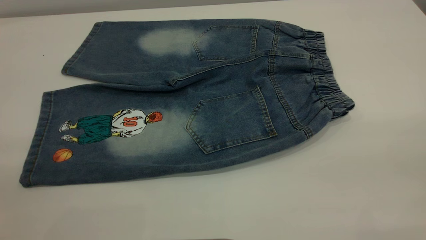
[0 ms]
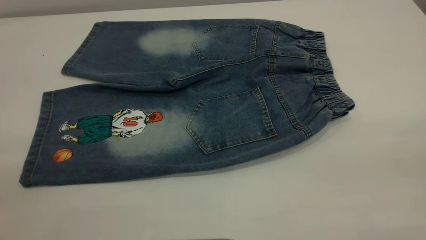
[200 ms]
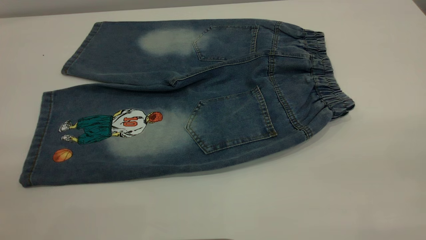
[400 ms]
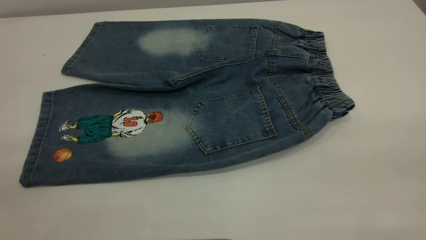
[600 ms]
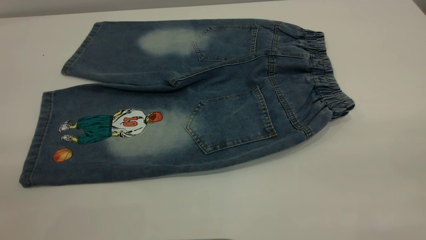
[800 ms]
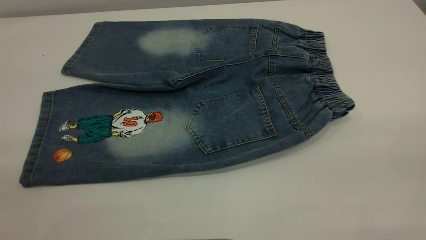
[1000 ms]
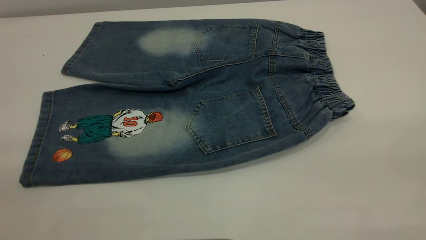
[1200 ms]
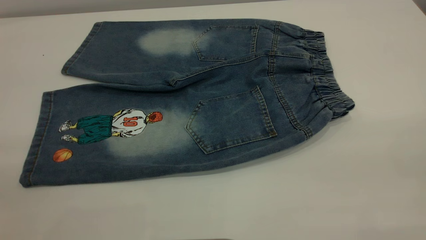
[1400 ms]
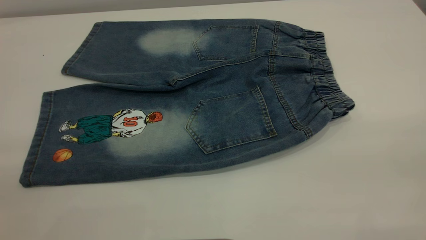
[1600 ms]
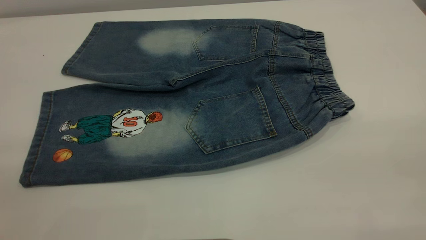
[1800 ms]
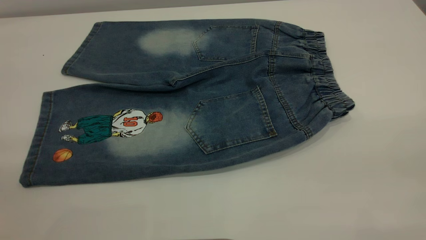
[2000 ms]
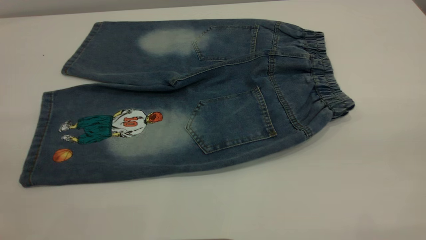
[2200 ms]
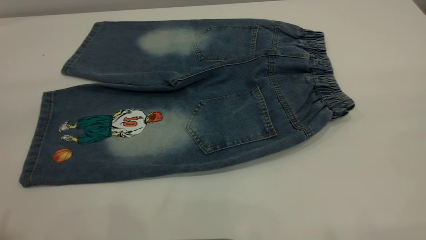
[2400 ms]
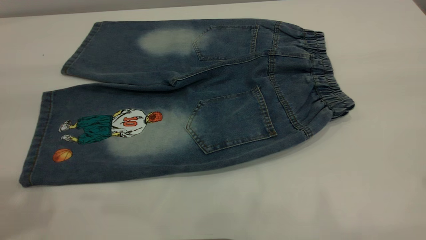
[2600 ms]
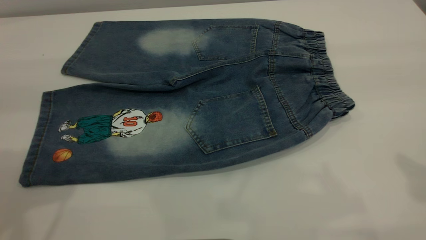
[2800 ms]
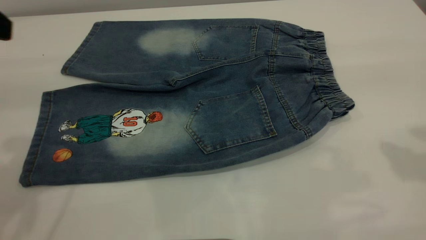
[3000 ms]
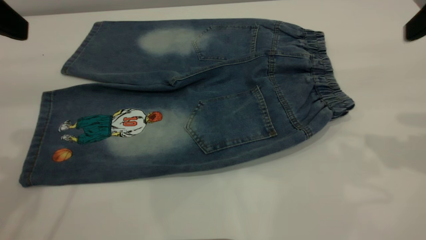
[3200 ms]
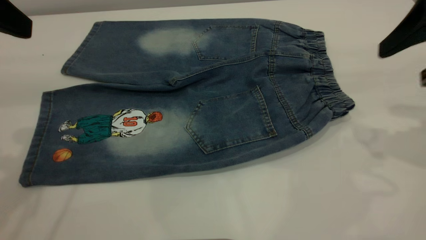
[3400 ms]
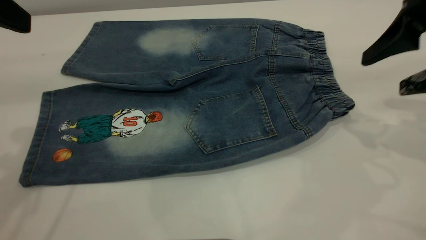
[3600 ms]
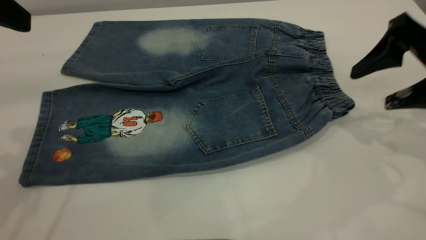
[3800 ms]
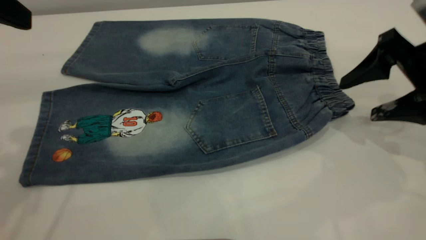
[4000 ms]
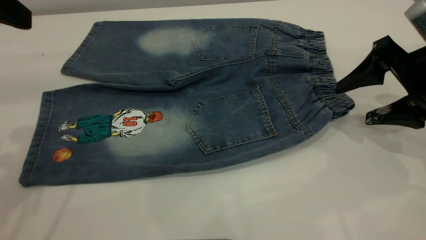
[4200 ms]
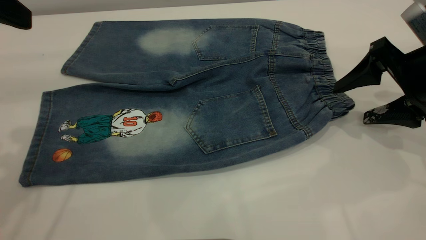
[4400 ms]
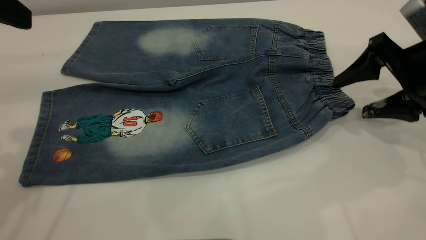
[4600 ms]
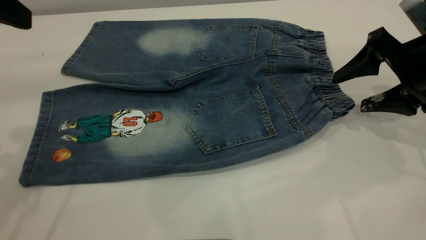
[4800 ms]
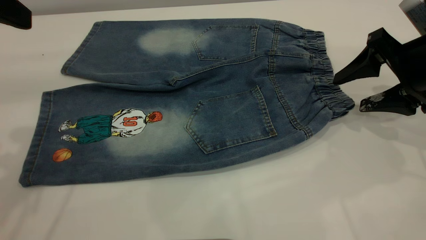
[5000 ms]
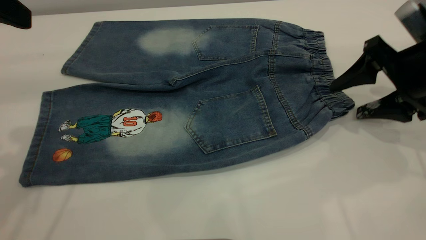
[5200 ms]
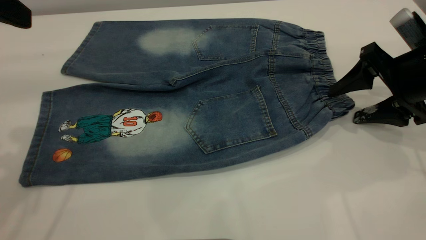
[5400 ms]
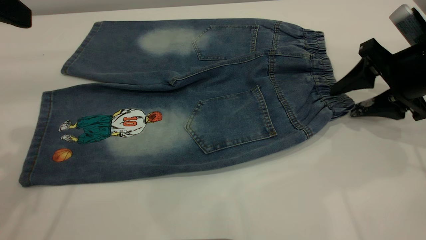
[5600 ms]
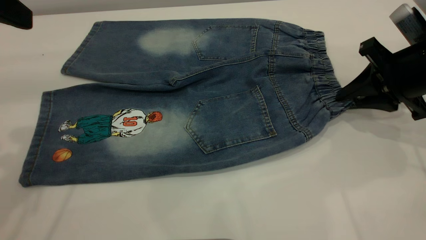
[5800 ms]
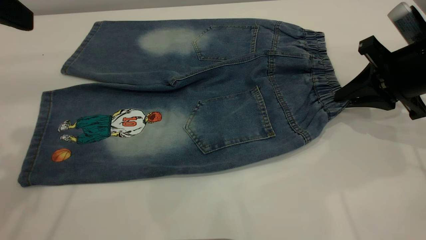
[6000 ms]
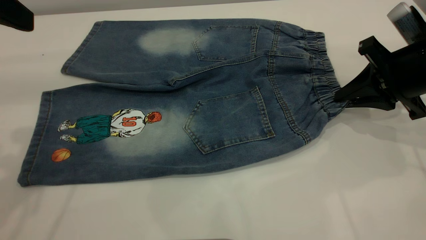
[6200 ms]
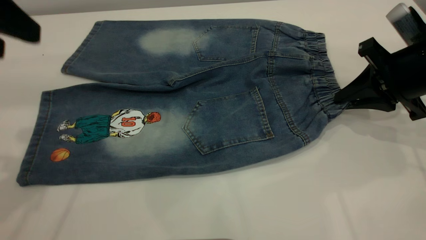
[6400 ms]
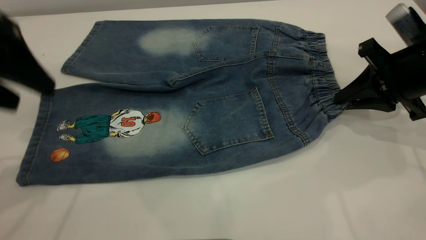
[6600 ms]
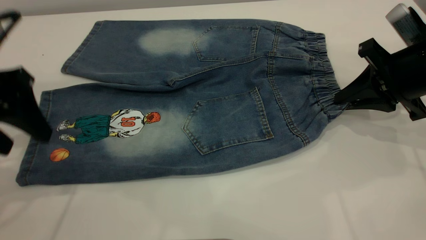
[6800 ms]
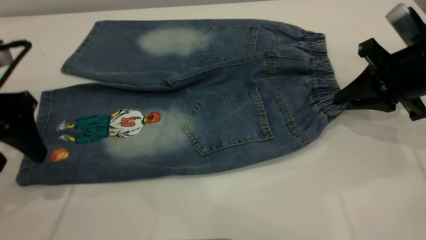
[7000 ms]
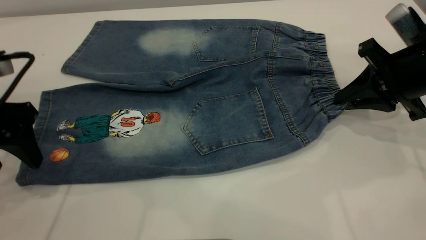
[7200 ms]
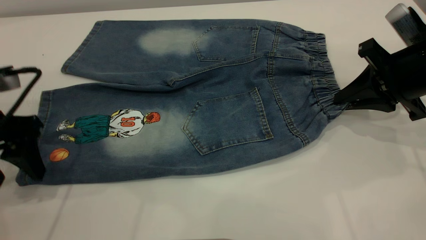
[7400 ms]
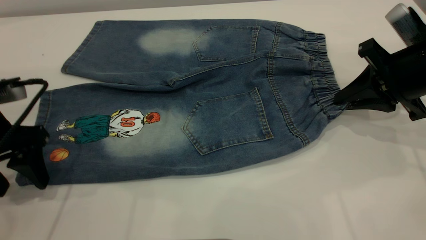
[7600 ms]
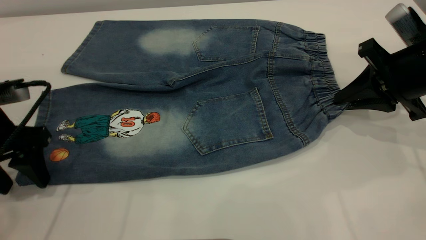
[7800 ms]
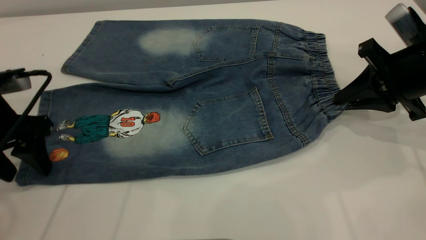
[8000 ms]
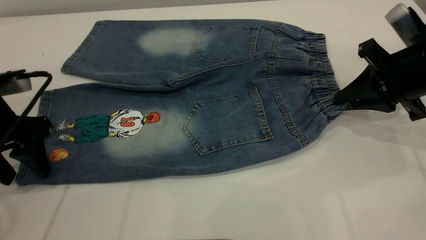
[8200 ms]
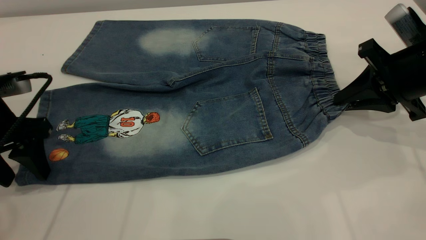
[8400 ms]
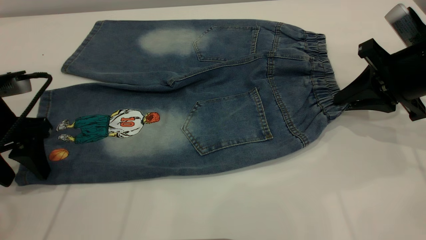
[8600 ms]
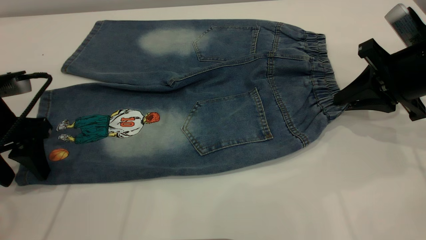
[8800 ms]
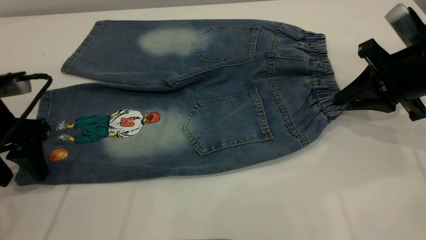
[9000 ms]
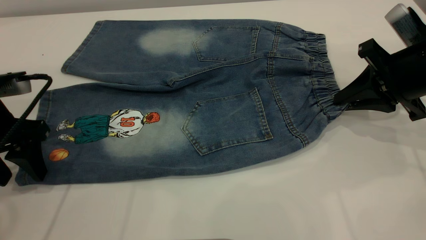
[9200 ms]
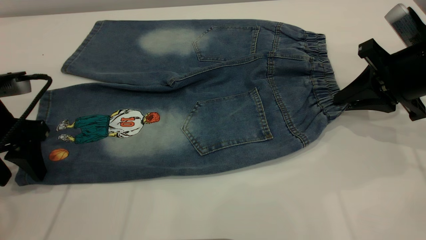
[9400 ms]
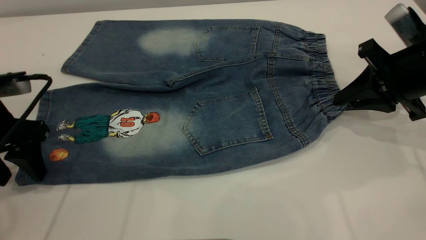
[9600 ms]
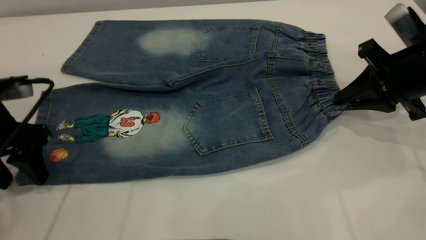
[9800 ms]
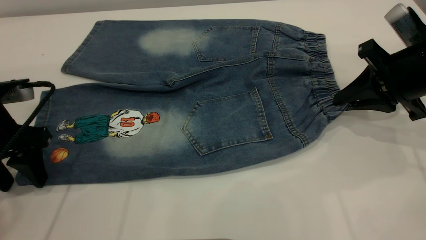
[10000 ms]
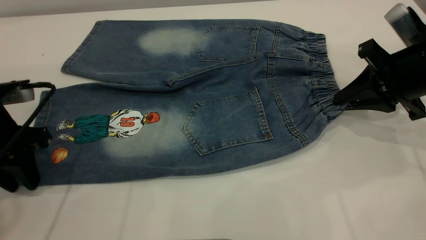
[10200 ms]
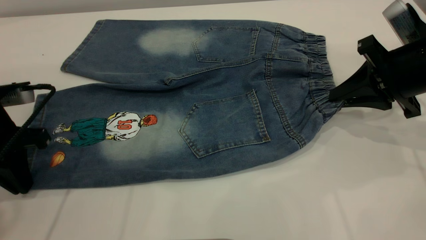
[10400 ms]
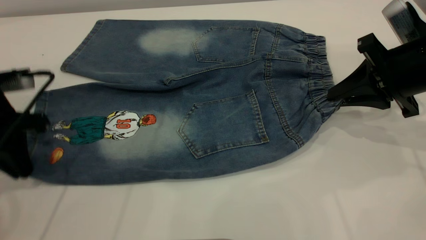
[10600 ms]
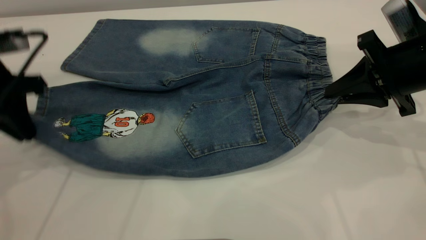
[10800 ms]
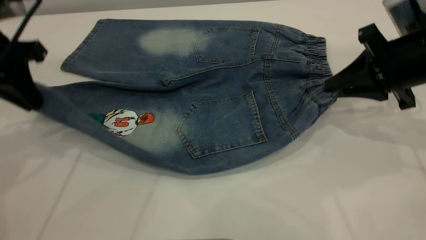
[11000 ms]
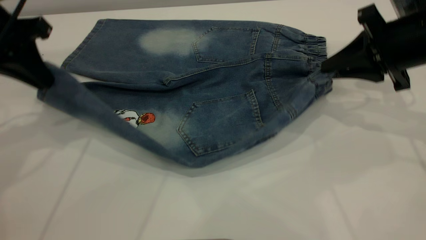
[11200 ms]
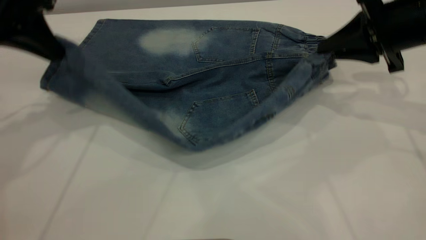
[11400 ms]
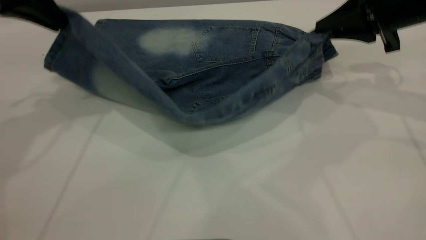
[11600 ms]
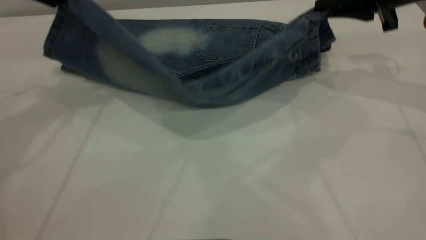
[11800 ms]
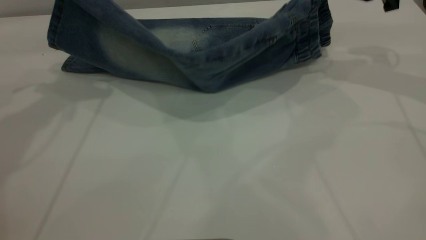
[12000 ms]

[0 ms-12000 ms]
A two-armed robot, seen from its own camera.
0 ms to 1600 ms: Both grippers stay put.
3000 ms to 4400 ms: The right gripper heads downward and forward, covering some 20 cm.
4400 ms to 6000 ms: The right gripper closes up.
6000 ms to 7600 ms: The left gripper travels downward by about 15 cm.
7600 ms to 9000 ms: The grippers move only a little.
9000 ms to 10400 ms: The left gripper closes up.
10400 ms to 12000 ms: The left gripper shifts some 20 cm upward and forward, while the right gripper moves forward and upward, some 15 cm.

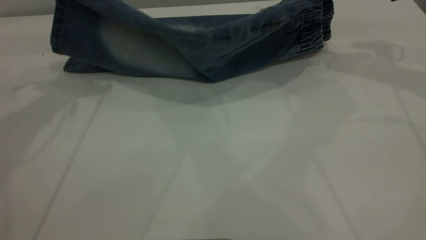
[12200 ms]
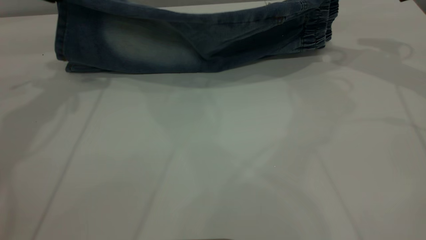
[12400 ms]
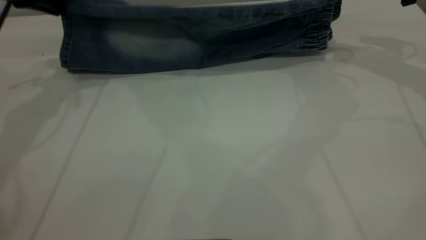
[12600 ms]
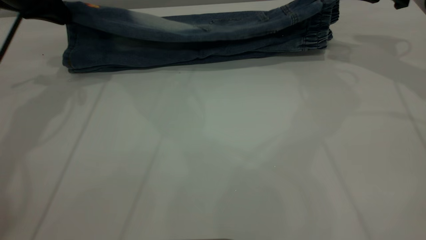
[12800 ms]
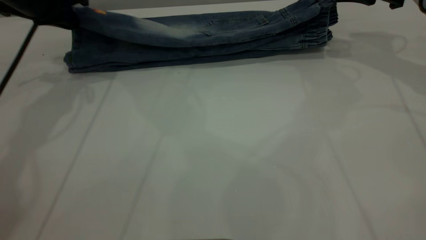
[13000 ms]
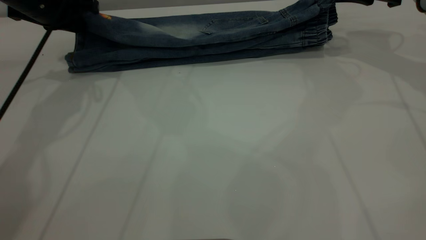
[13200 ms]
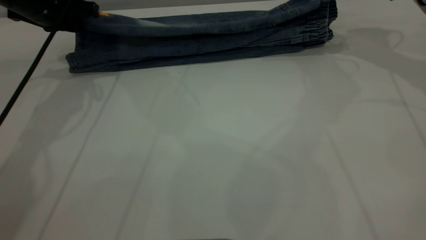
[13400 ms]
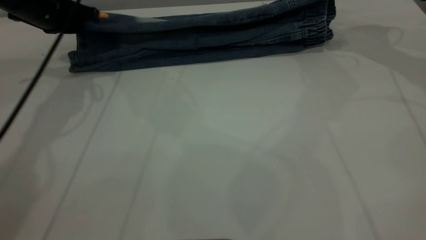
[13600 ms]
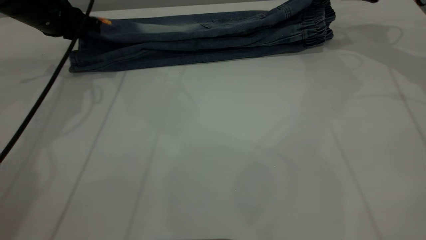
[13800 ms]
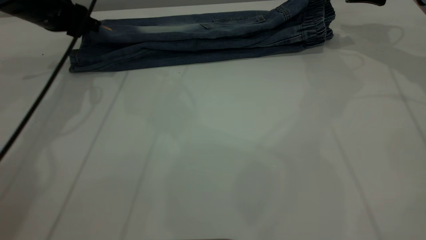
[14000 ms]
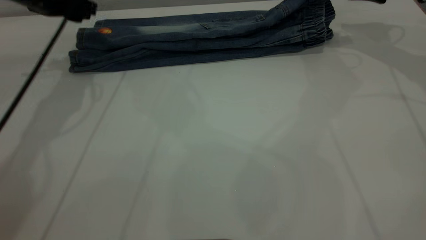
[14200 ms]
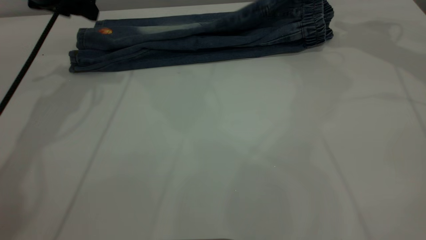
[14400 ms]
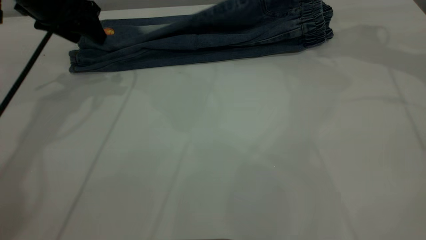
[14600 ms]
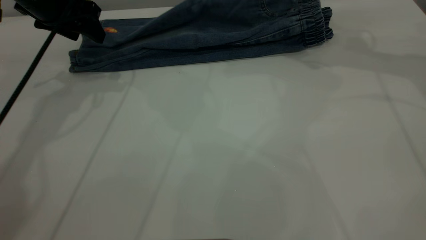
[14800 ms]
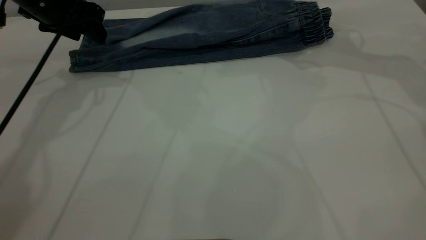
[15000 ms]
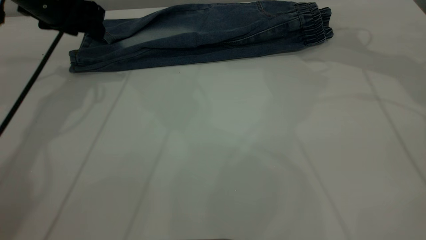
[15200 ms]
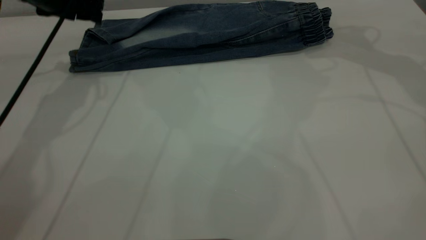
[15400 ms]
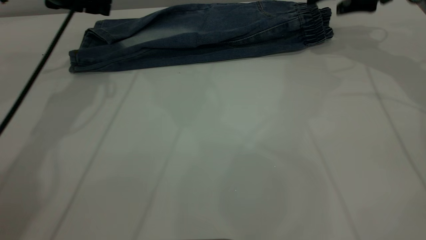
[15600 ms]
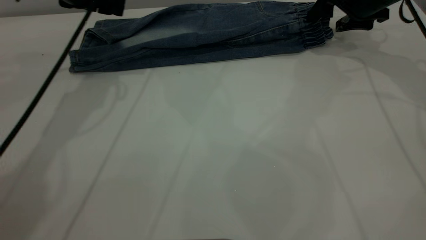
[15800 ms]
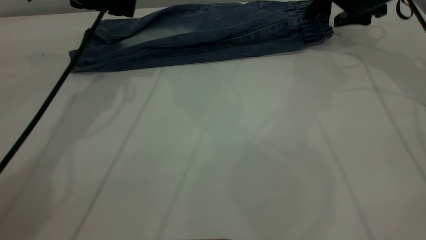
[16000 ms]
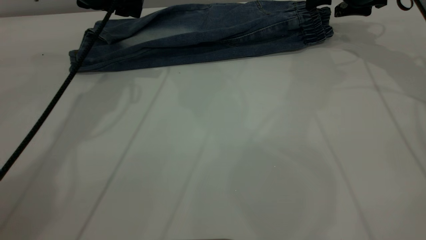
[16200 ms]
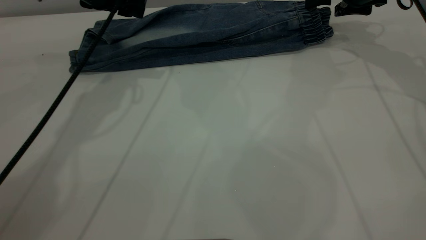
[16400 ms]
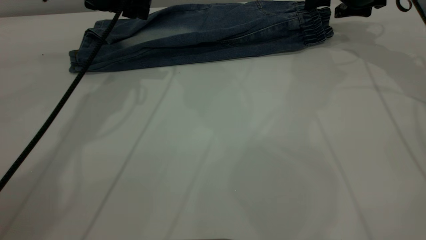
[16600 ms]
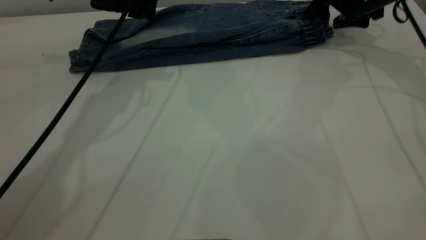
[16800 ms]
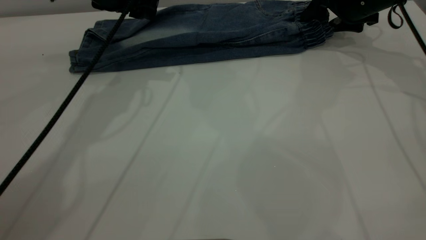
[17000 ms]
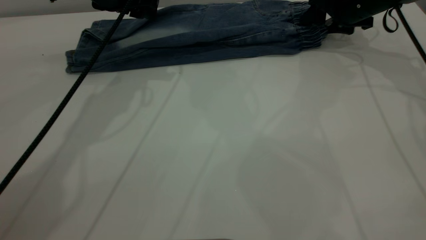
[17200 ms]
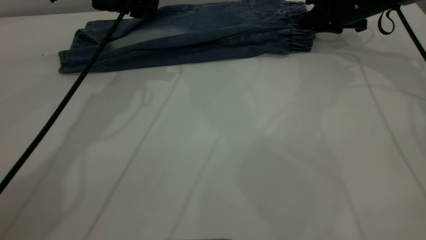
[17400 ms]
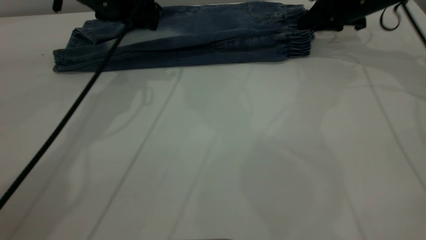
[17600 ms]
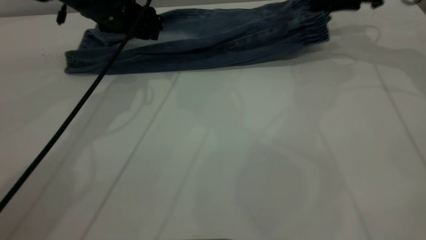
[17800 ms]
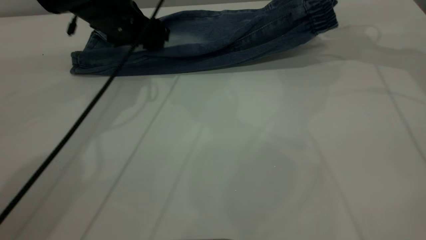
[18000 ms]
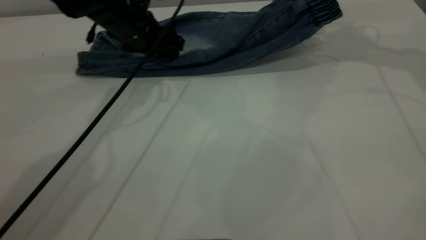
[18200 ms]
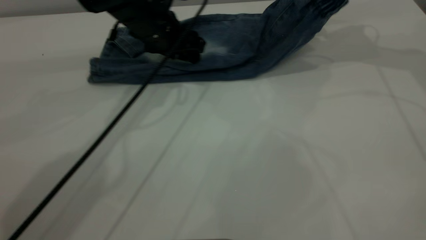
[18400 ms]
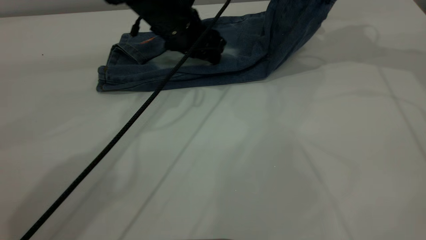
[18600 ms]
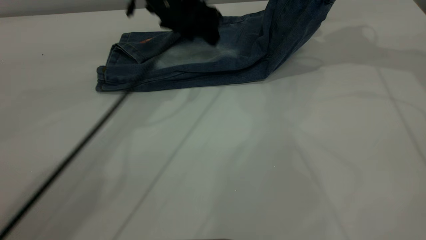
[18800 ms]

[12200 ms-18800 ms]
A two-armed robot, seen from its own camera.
Step, 12200 ms to 15400 ms: Fold the bottom of the pants upward.
12200 ms to 13800 ms: The left gripper heads downward, covering some 10 cm; the right gripper shifts approximately 5 cm forward, and opens.
13800 ms to 15400 ms: The left gripper opens up.
15400 ms to 17200 ms: The right gripper travels downward by approximately 10 cm, and closes its fingers. Meanwhile the left gripper heads to the right, covering approximately 10 cm.
17200 ms to 18800 ms: The right gripper goes approximately 15 cm upward, and closes. The left gripper moves to the right, about 10 cm.
